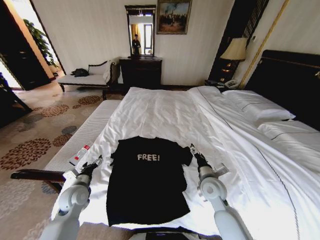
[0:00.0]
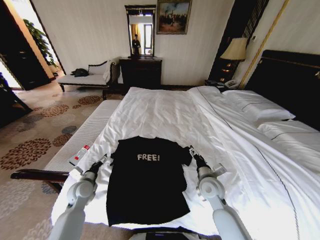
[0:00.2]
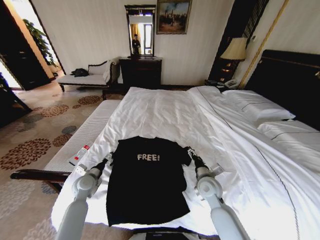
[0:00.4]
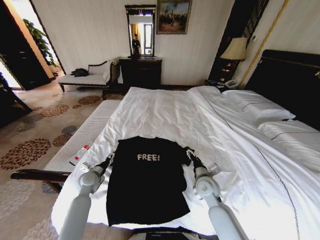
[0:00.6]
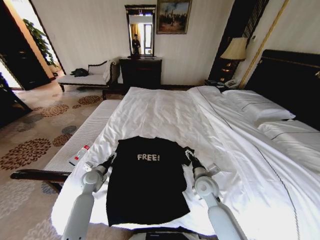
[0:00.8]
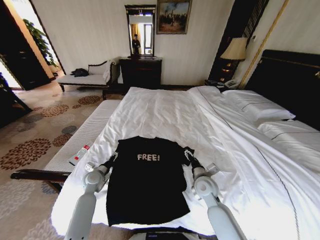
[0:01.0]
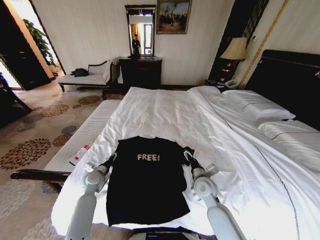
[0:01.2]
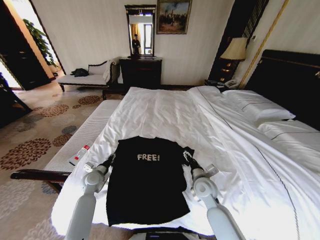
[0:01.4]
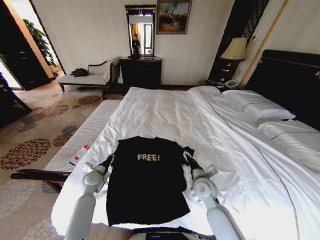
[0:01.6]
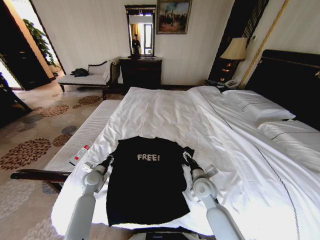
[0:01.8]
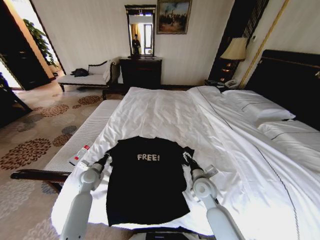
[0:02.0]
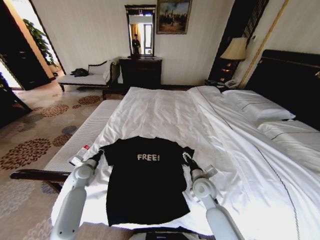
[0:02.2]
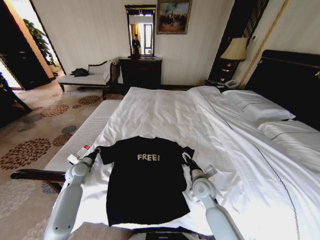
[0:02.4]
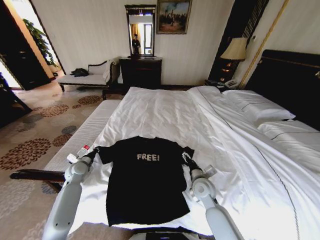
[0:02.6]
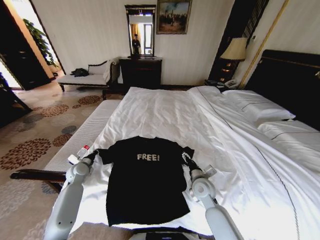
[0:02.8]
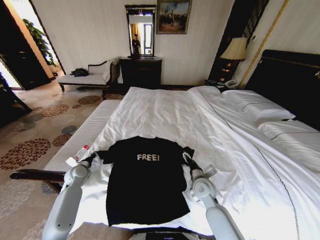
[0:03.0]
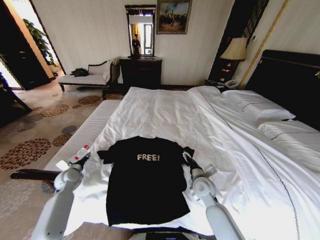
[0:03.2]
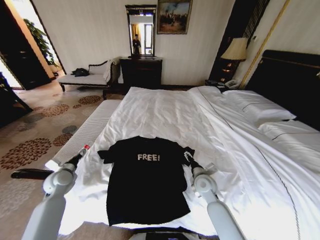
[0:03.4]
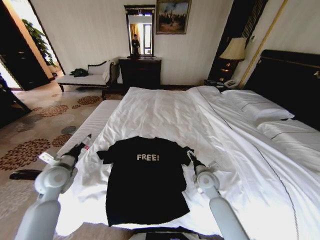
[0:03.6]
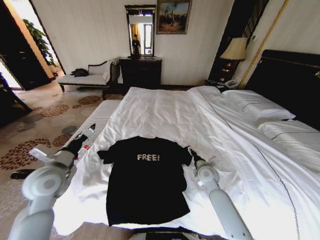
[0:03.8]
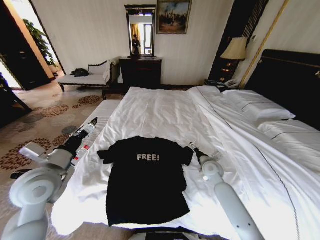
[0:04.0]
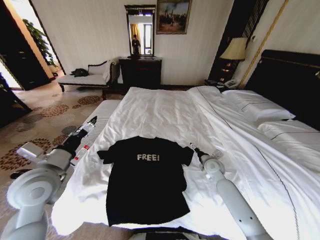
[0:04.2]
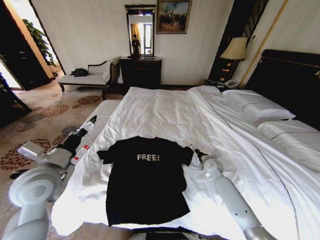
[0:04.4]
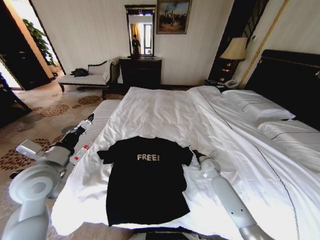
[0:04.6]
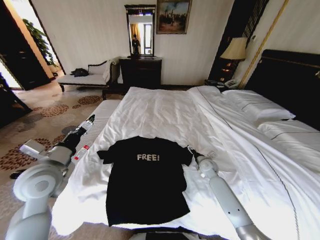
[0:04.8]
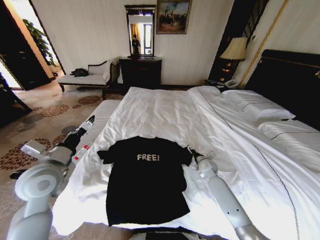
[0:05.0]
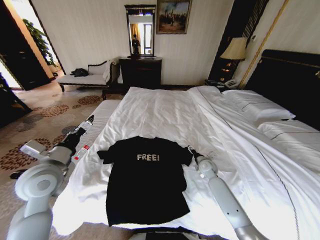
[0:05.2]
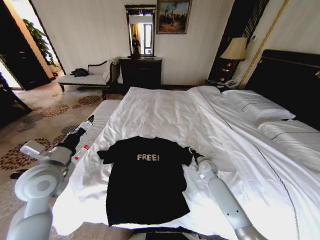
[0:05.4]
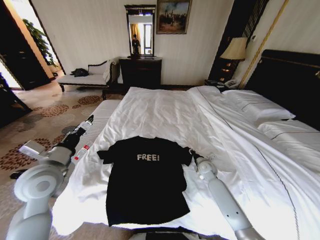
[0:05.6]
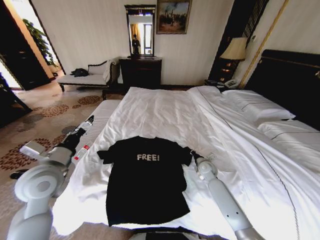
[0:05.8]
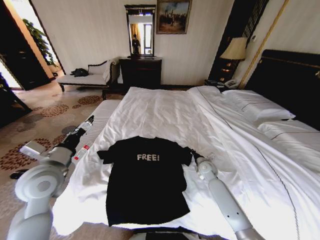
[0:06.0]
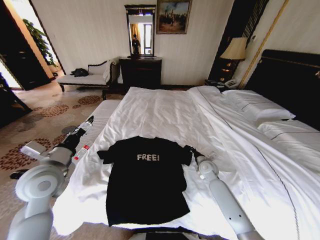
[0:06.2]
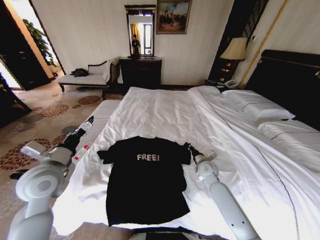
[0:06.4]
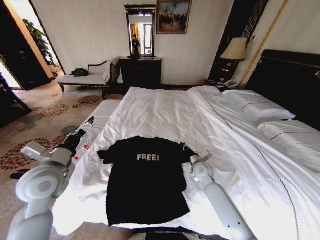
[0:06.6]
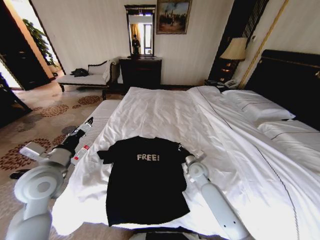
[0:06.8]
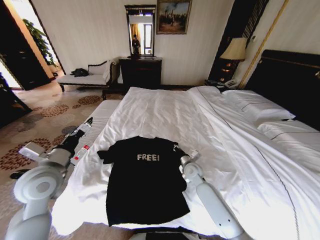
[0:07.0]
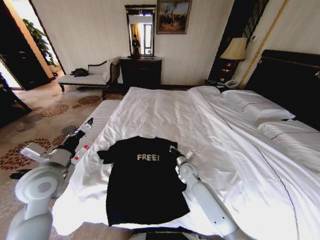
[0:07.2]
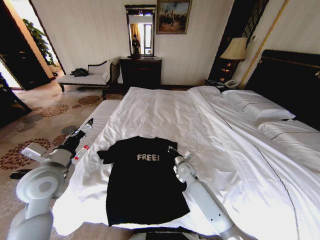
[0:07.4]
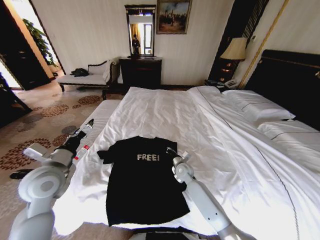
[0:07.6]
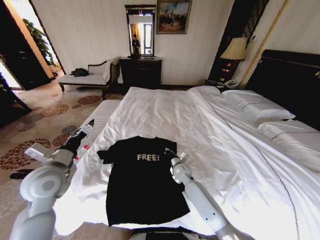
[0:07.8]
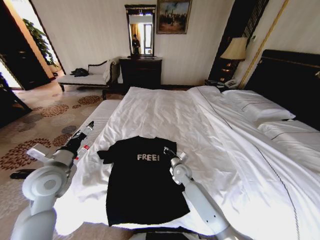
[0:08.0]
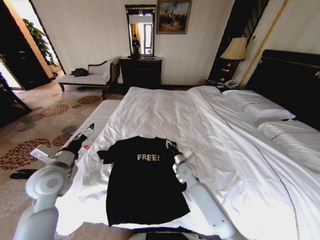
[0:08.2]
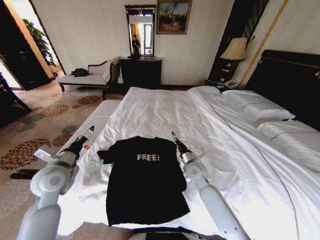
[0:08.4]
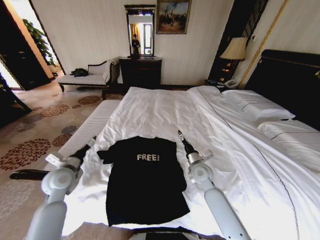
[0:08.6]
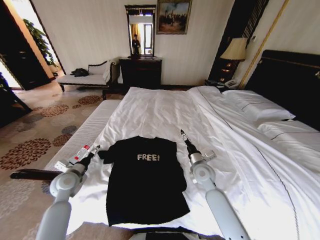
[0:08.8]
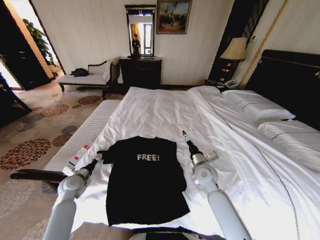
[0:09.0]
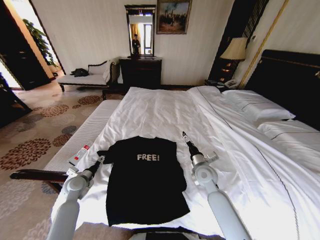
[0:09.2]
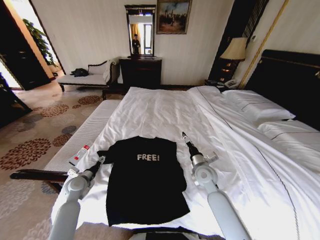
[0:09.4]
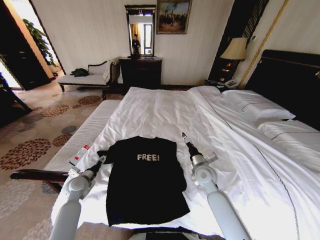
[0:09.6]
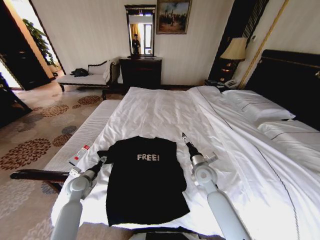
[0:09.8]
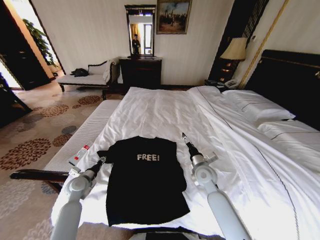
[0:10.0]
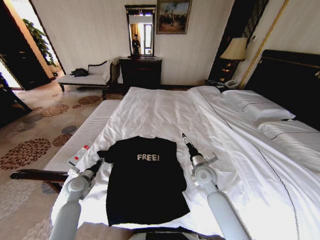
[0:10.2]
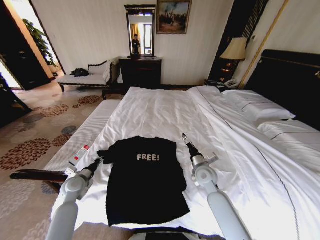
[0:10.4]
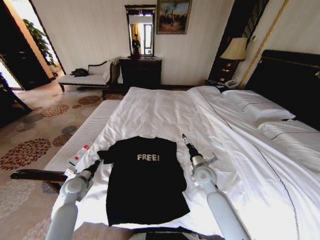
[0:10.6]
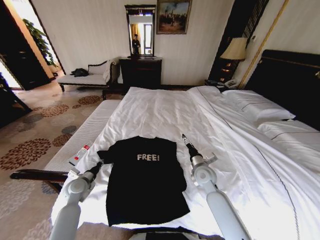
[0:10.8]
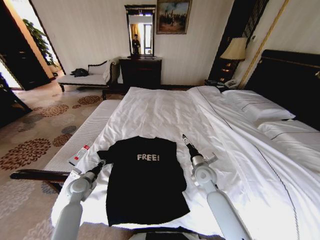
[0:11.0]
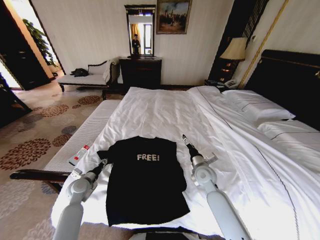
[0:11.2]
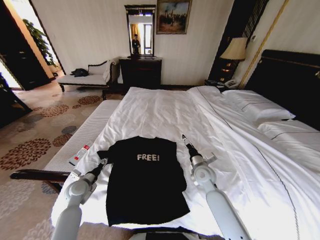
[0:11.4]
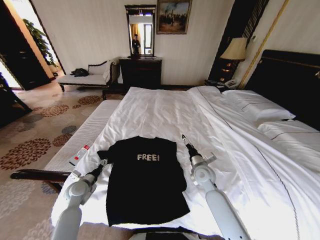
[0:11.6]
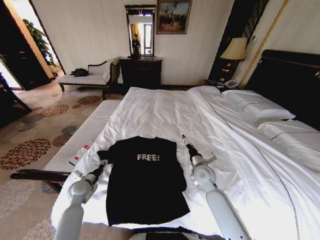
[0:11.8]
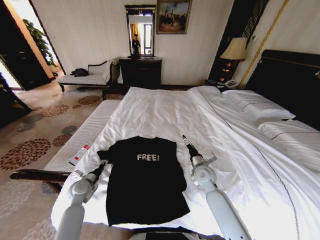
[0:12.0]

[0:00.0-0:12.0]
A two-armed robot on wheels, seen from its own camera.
Task of the whole recording: Fold the clothes on the bed.
0:00.0 to 0:01.6: The left gripper goes some 5 cm forward, and closes.
0:01.6 to 0:03.0: The left gripper goes about 10 cm to the left.
0:03.0 to 0:04.4: The left gripper moves upward and backward, about 25 cm, and opens up, while the right gripper shifts roughly 15 cm forward and to the right.
0:04.4 to 0:06.0: The right gripper closes up.
0:06.0 to 0:07.6: The right gripper moves to the left, roughly 15 cm.
0:07.6 to 0:09.0: The right gripper moves upward, to the right and backward, some 10 cm, and opens its fingers. Meanwhile the left gripper moves downward, approximately 20 cm.
0:09.0 to 0:10.4: The left gripper closes.
0:10.4 to 0:12.0: The left gripper opens and closes again.

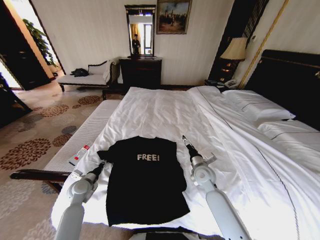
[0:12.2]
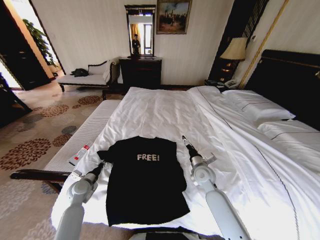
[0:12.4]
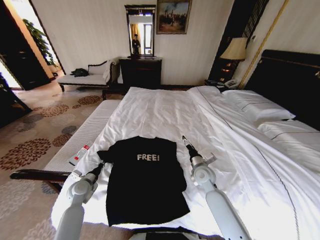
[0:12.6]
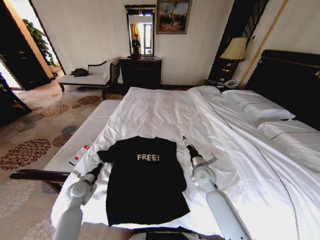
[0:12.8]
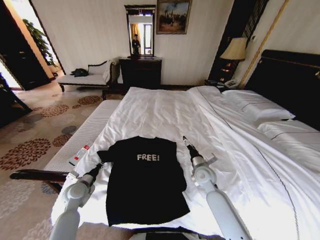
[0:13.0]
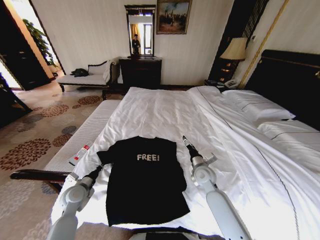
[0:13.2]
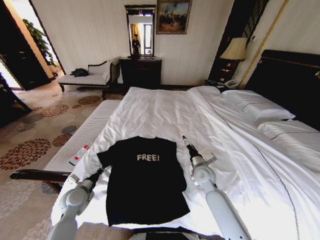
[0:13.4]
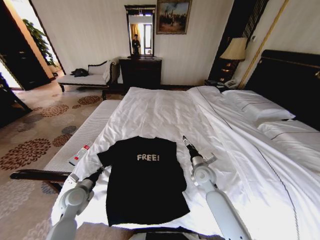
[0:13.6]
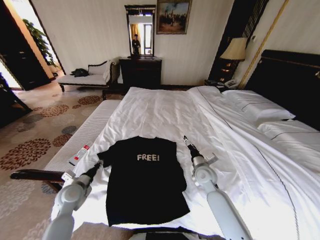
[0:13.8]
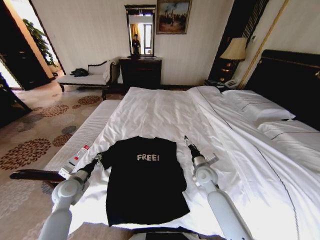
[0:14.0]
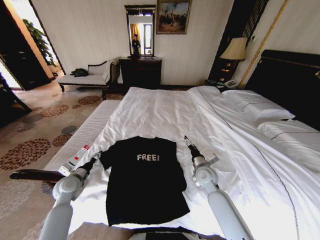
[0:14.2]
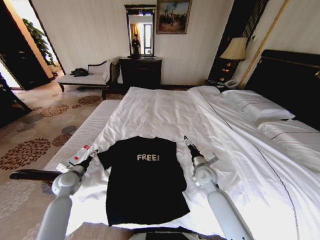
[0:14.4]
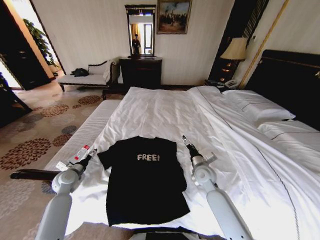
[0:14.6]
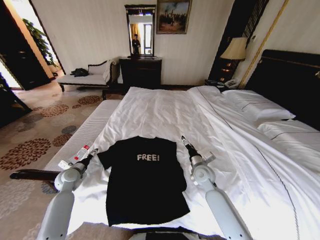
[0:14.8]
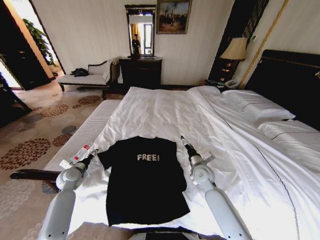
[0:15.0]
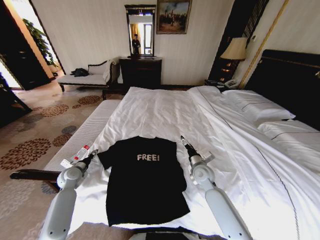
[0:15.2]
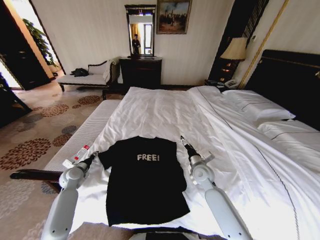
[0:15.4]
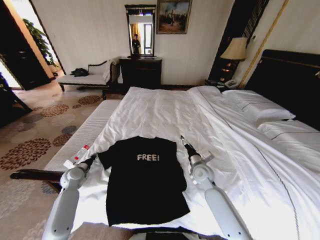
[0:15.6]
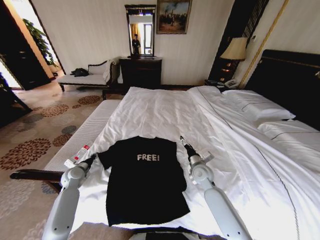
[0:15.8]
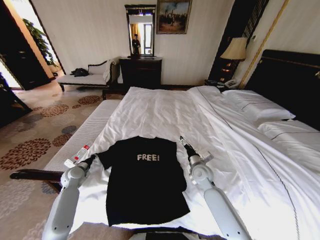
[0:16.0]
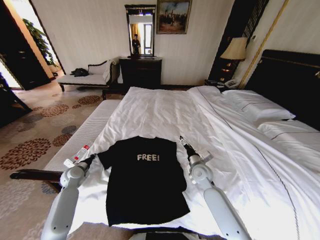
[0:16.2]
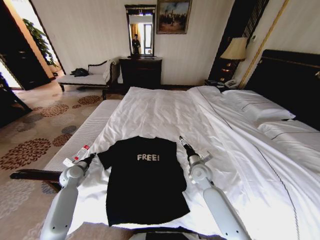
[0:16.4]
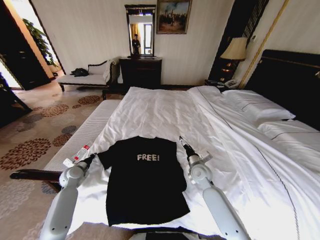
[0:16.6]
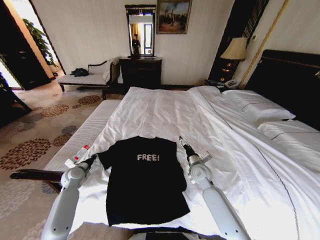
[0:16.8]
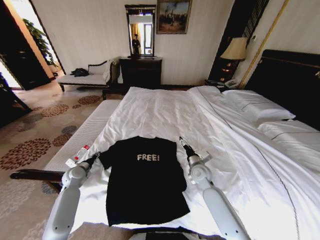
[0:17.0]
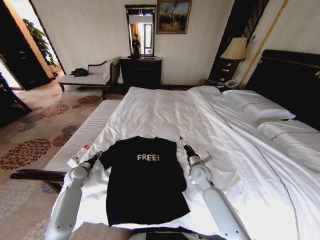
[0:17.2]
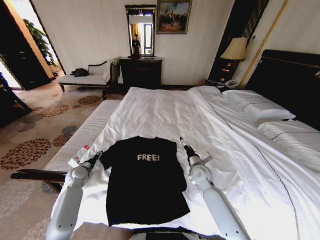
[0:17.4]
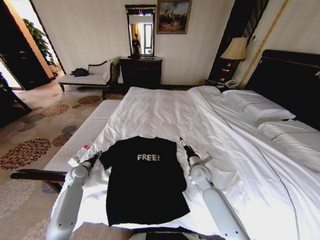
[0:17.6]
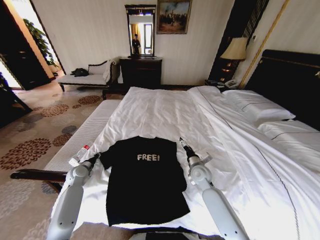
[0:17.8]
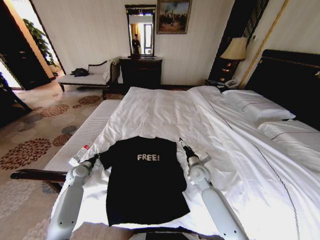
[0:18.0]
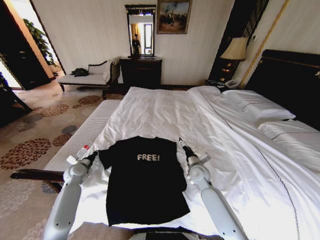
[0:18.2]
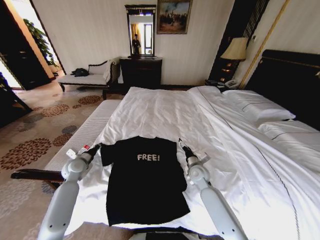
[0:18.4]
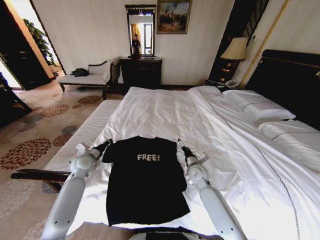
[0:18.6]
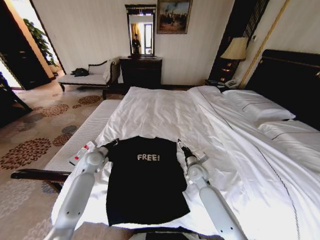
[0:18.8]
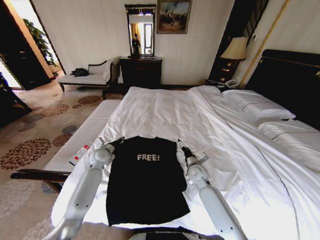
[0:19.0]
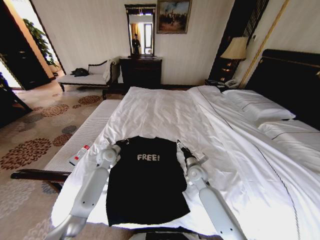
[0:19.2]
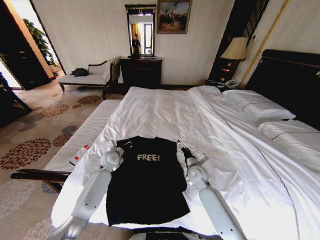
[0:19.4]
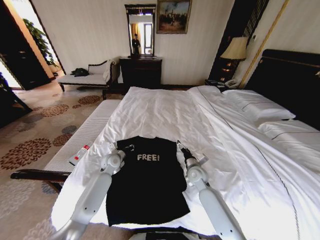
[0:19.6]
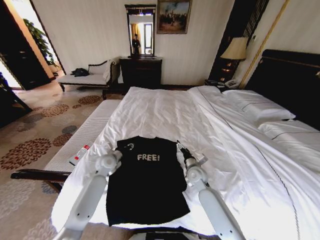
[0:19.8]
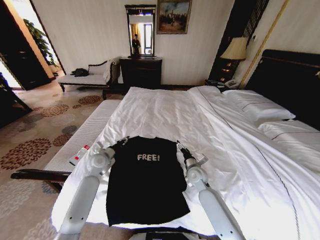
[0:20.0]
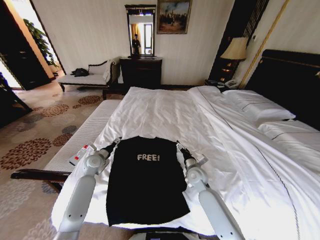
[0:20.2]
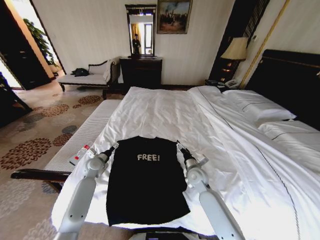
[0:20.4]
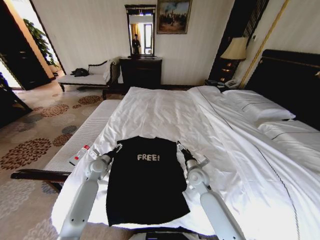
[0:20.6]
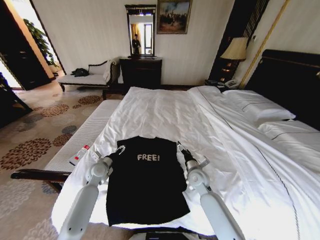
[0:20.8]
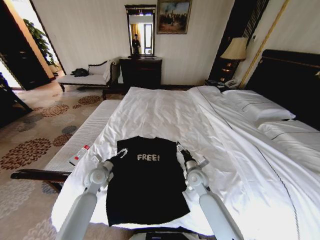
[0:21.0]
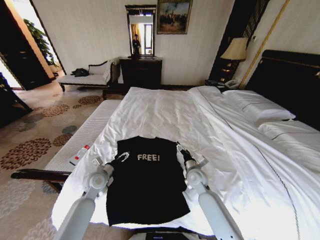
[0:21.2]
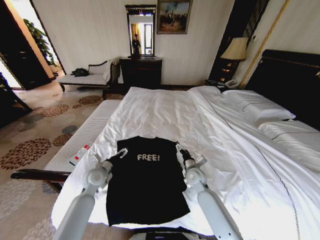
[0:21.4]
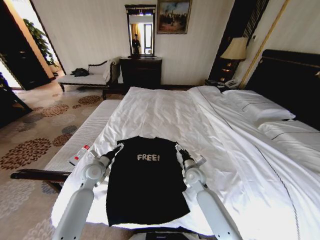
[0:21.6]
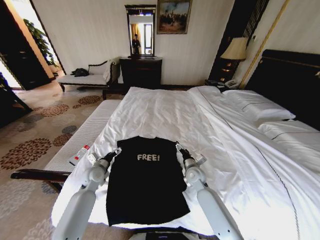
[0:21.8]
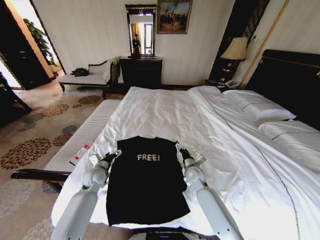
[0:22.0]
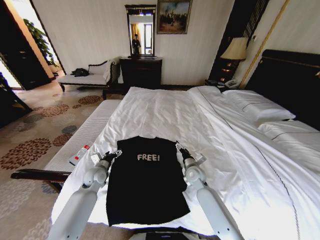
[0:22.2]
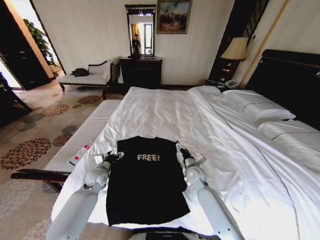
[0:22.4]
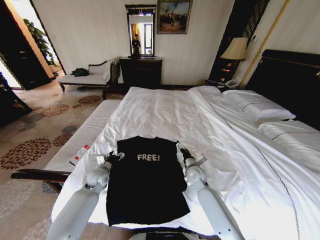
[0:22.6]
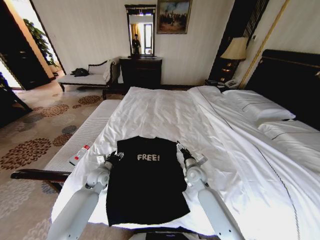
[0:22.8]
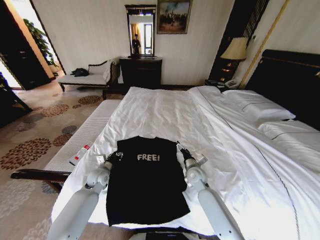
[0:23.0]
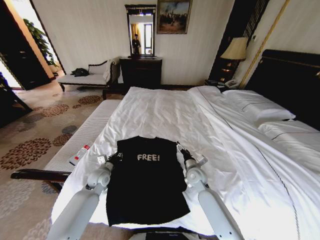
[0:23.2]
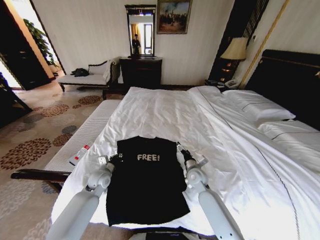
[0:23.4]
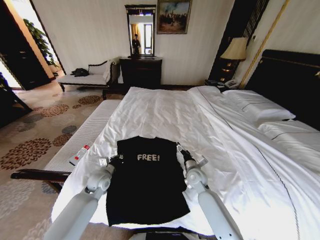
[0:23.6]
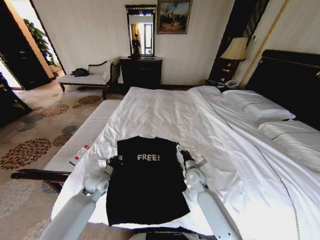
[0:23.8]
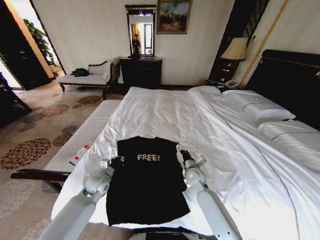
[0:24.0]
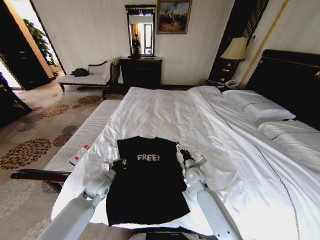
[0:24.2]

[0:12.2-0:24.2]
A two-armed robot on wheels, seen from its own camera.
Task of the whole recording: Fold the clothes on the bed.
0:12.2 to 0:13.8: The left gripper moves approximately 5 cm, and closes, then reopens.
0:13.8 to 0:15.2: The left gripper travels forward and to the left by about 10 cm.
0:15.2 to 0:16.6: The left gripper closes up.
0:16.6 to 0:18.2: The left gripper opens, then closes again.
0:18.2 to 0:19.8: The left gripper shifts approximately 15 cm to the right.
0:19.8 to 0:21.2: The left gripper is displaced backward by some 10 cm, and opens its fingers.
0:21.2 to 0:22.6: The left gripper shifts by about 5 cm.
0:22.6 to 0:24.2: The left gripper closes its fingers.
